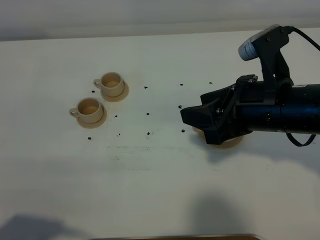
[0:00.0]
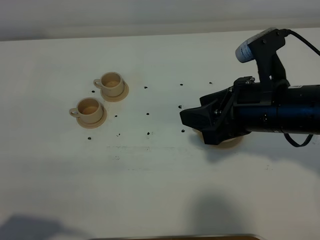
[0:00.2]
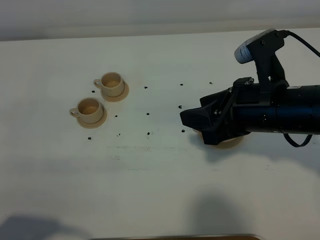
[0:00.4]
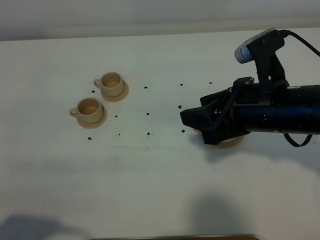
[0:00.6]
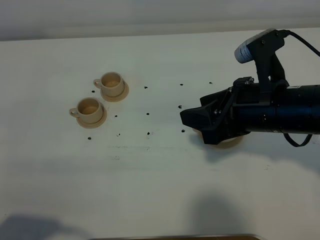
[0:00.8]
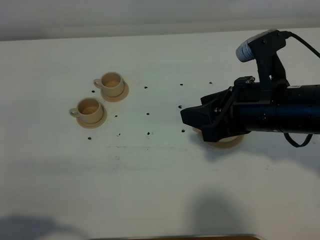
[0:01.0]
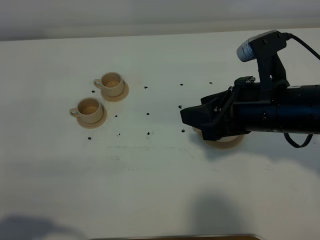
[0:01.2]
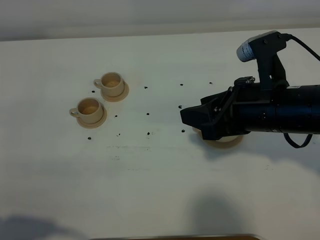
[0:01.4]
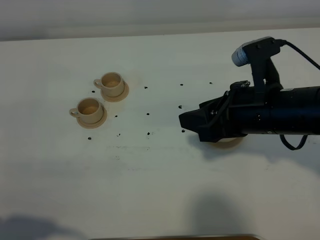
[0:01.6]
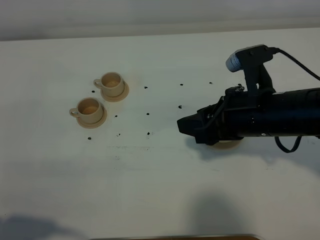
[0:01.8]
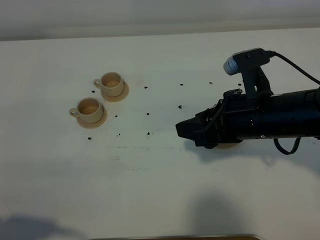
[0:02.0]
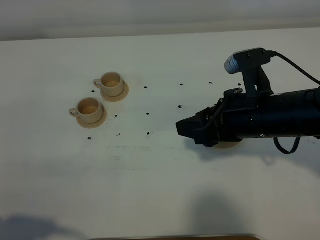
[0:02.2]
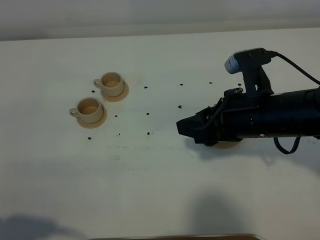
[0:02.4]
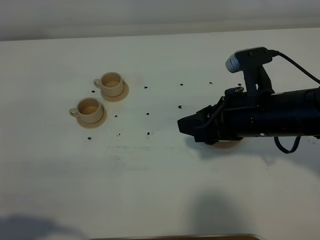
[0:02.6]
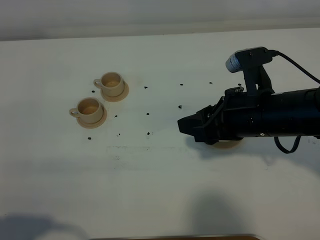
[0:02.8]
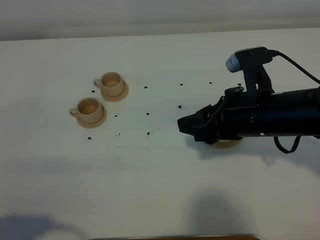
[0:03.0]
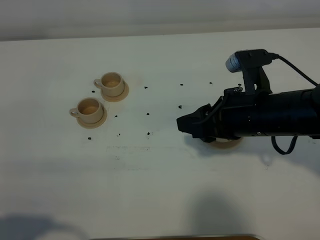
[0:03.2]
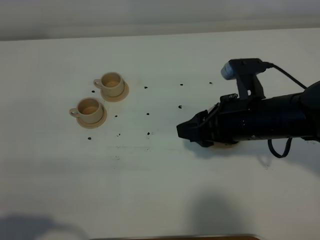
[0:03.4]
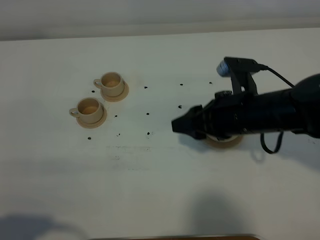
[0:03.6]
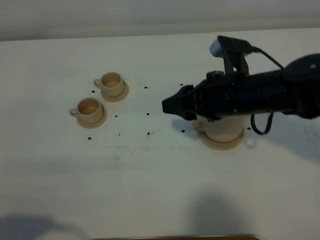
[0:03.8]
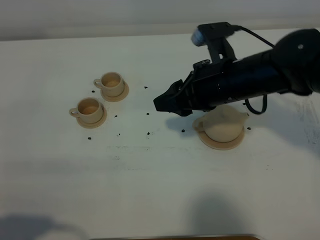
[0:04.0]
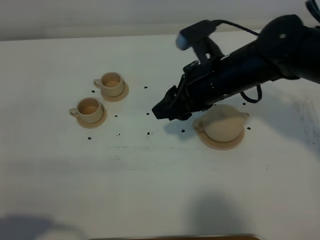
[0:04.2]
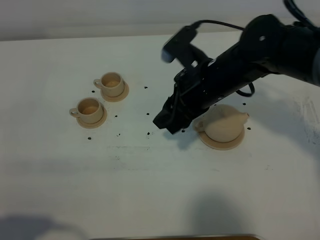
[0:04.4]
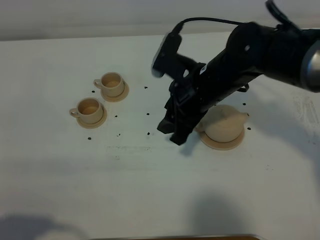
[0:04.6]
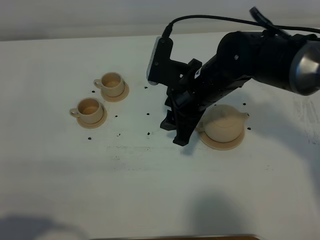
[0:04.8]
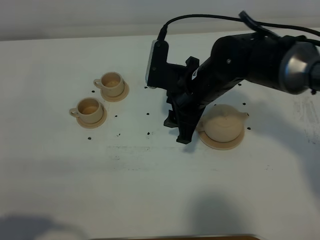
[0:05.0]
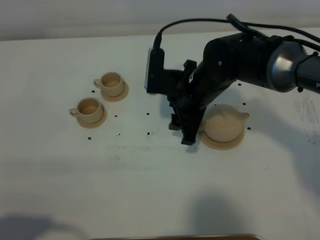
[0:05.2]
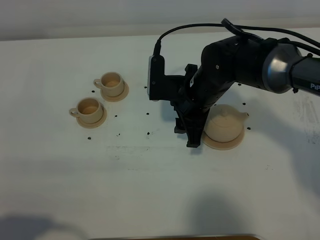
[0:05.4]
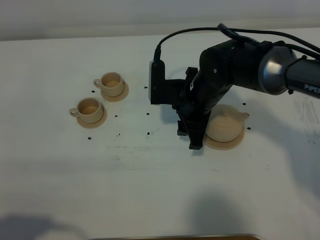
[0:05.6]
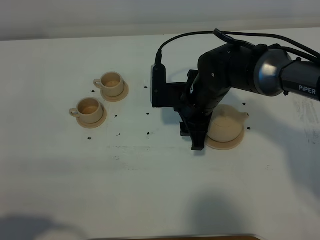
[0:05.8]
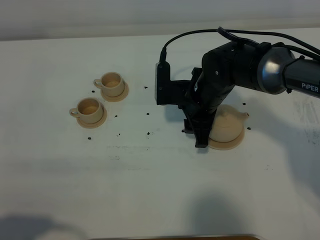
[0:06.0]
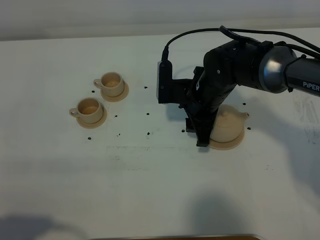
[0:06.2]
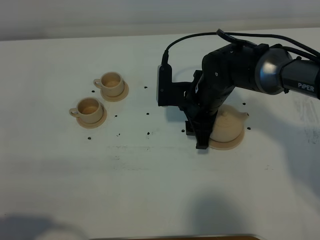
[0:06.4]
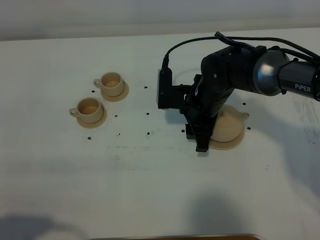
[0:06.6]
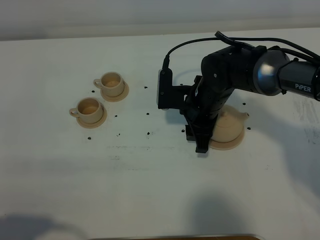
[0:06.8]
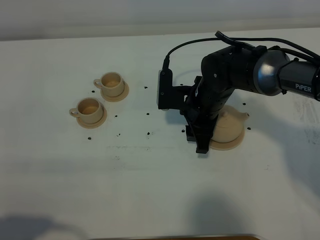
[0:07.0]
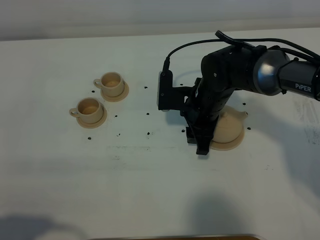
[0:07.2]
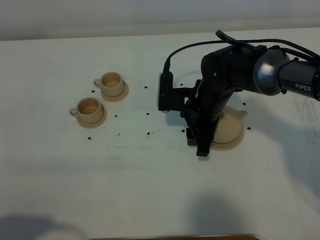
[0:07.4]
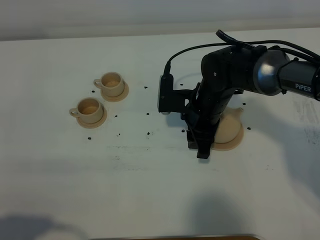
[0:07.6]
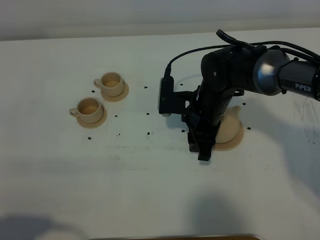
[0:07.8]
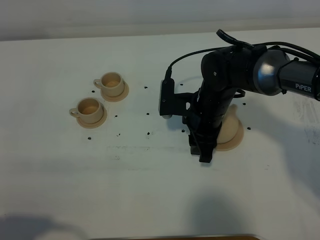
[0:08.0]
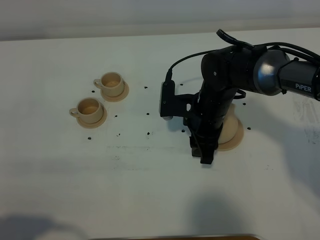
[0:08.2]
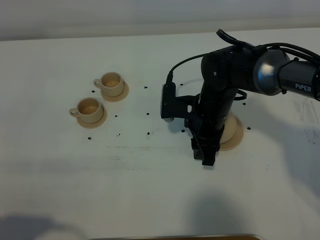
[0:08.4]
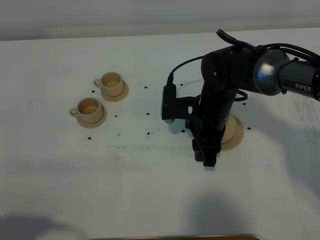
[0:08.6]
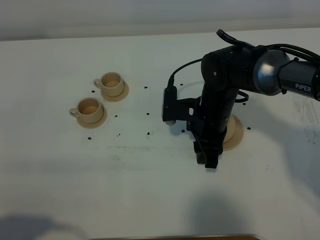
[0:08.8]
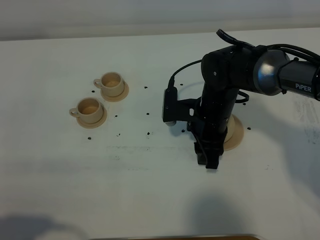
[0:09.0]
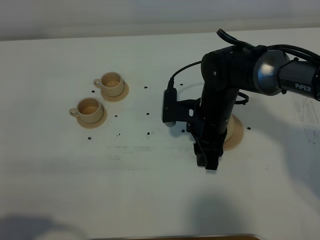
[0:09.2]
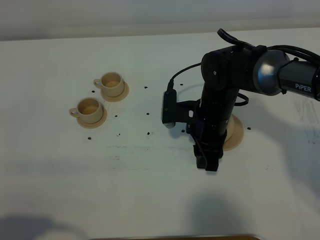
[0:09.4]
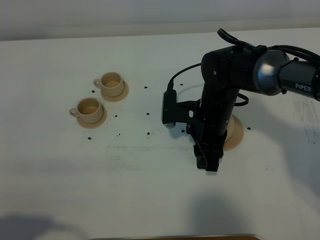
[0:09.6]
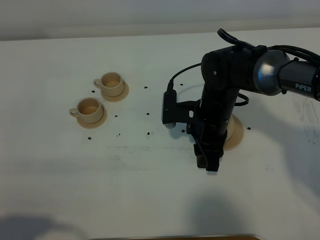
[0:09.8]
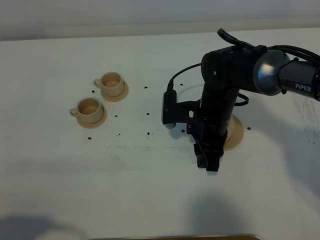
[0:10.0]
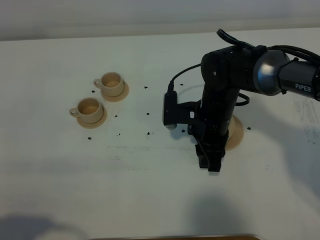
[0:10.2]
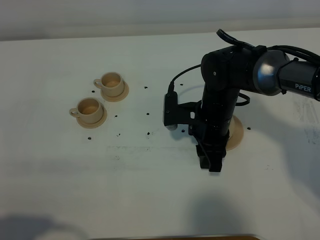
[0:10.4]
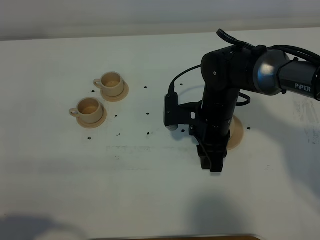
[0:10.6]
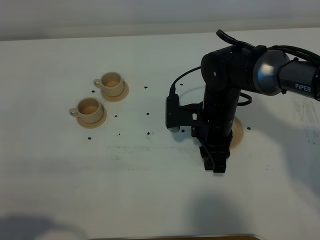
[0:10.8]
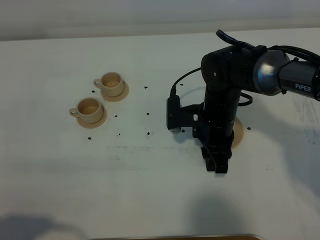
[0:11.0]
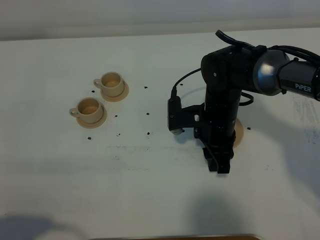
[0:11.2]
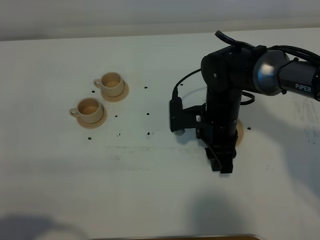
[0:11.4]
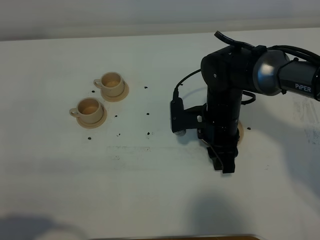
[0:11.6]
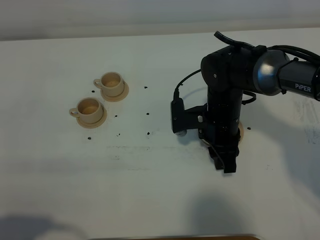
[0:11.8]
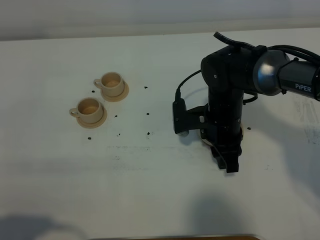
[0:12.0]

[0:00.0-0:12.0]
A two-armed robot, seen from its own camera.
Task of the whole recording: grasp the brown teapot and pour the tea into the two brown teacups one by one, put the brown teapot back in its original place.
0:00.0 to 0:03.0: There are only small adjustments of the grippers.
0:03.0 to 0:04.4: The right gripper goes roughly 10 cm forward and to the left.
0:04.4 to 0:06.0: The right gripper goes some 5 cm downward.
0:06.0 to 0:07.6: The grippers move only a little.
0:07.6 to 0:09.0: The grippers move only a little.
0:09.0 to 0:10.4: Neither gripper changes place.
0:10.4 to 0:12.0: The grippers make only small movements.

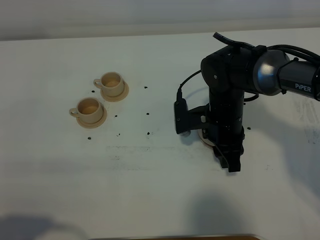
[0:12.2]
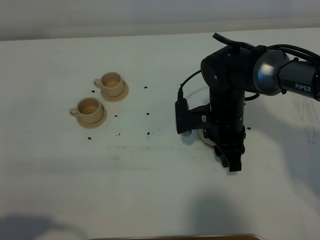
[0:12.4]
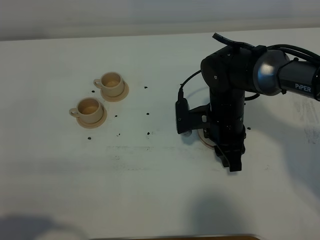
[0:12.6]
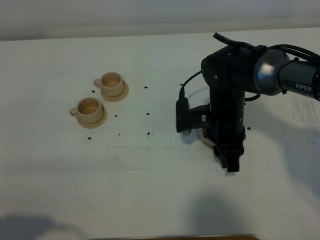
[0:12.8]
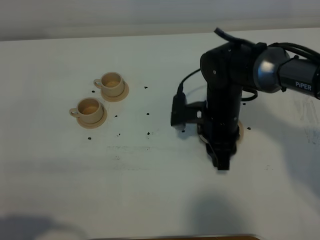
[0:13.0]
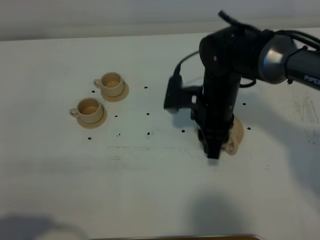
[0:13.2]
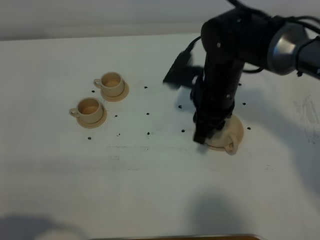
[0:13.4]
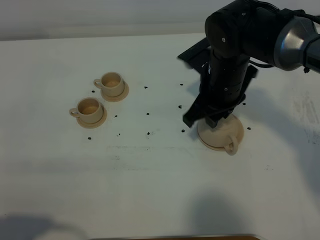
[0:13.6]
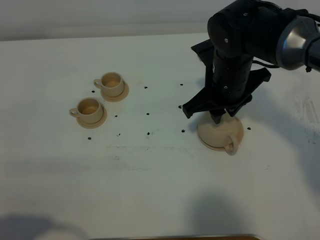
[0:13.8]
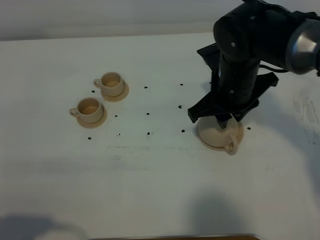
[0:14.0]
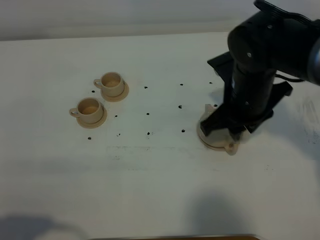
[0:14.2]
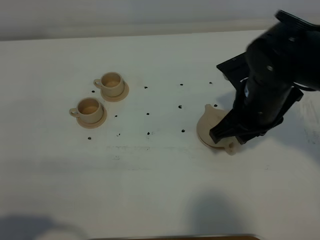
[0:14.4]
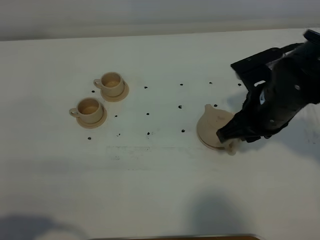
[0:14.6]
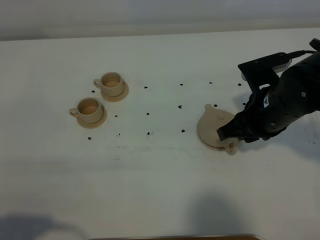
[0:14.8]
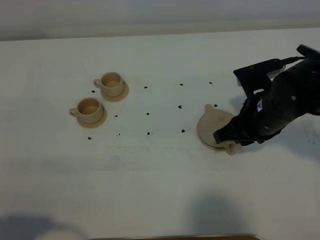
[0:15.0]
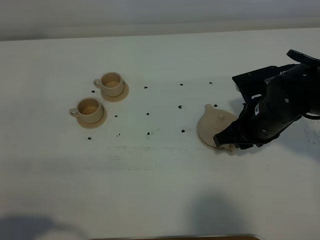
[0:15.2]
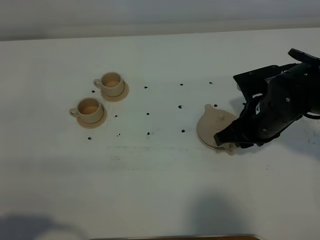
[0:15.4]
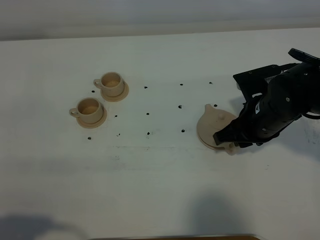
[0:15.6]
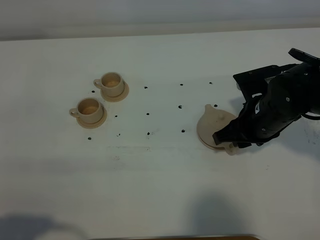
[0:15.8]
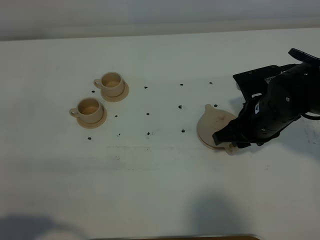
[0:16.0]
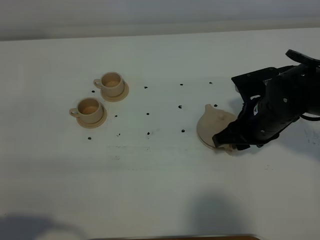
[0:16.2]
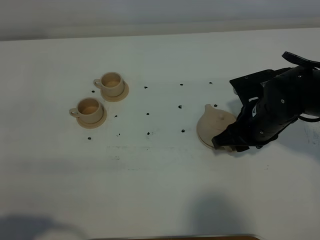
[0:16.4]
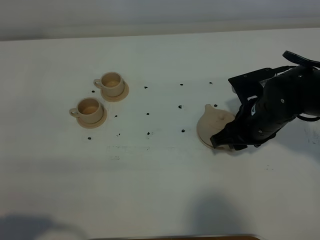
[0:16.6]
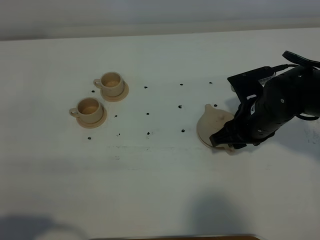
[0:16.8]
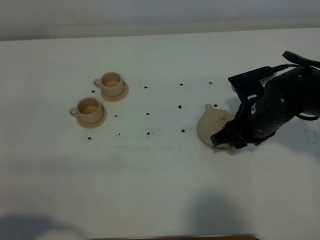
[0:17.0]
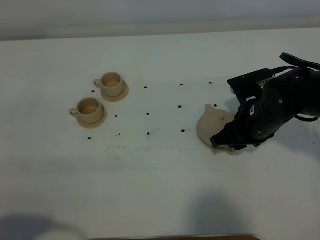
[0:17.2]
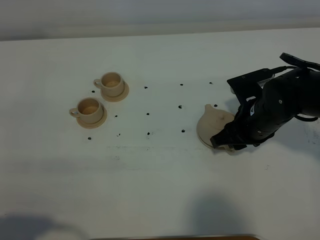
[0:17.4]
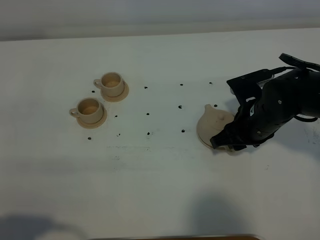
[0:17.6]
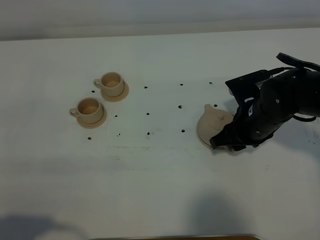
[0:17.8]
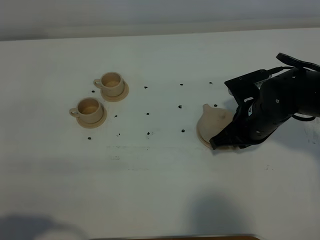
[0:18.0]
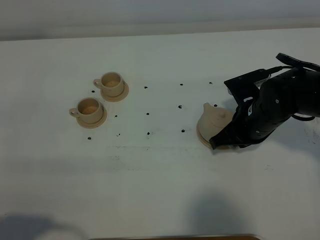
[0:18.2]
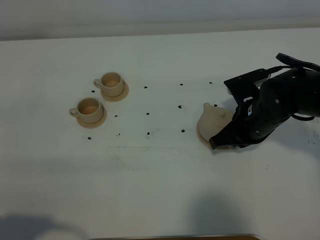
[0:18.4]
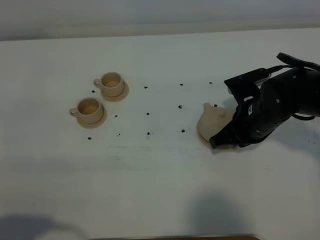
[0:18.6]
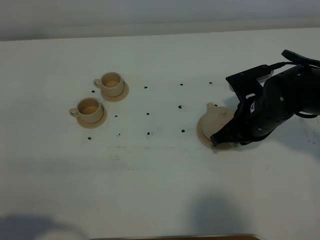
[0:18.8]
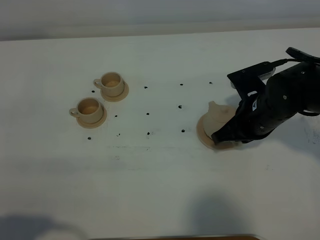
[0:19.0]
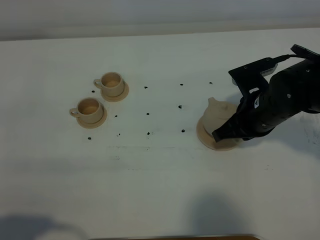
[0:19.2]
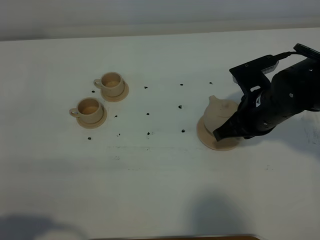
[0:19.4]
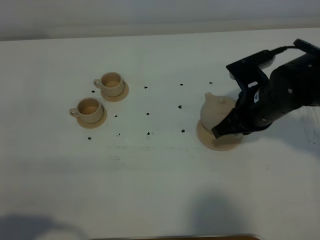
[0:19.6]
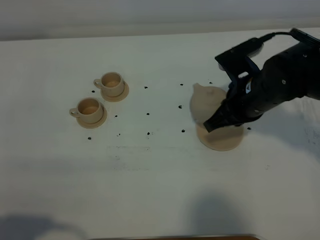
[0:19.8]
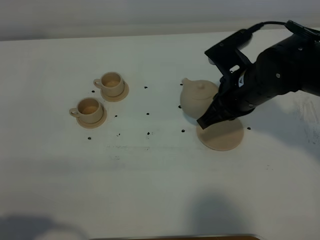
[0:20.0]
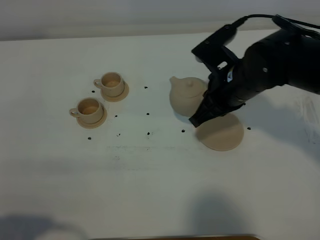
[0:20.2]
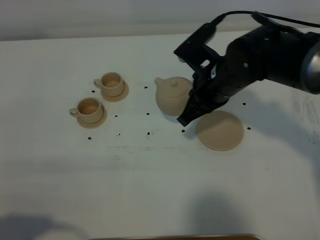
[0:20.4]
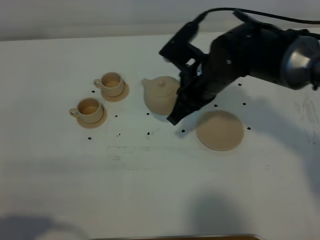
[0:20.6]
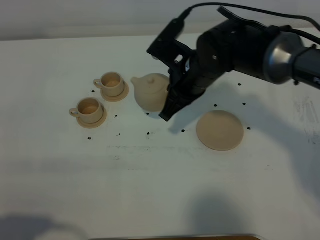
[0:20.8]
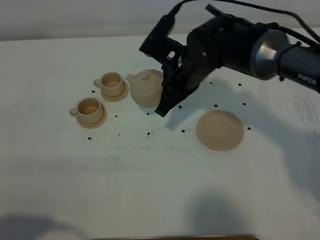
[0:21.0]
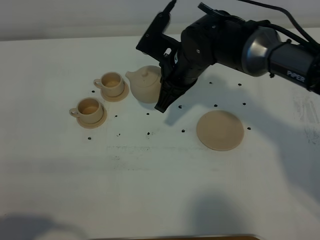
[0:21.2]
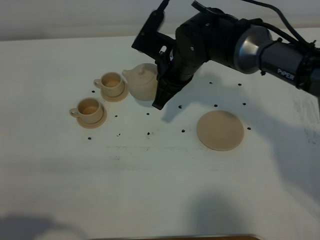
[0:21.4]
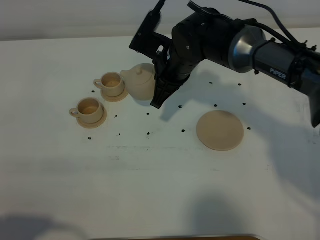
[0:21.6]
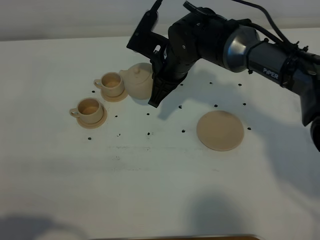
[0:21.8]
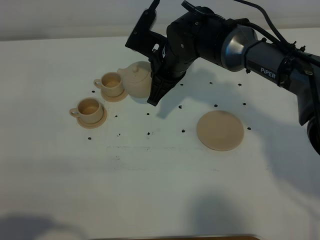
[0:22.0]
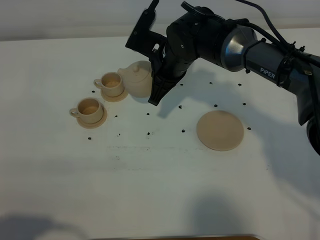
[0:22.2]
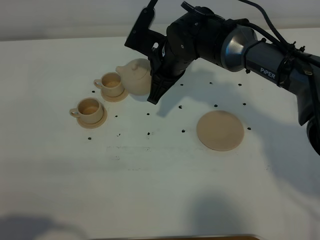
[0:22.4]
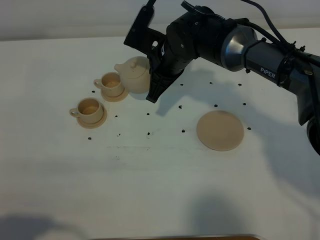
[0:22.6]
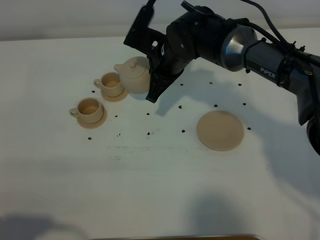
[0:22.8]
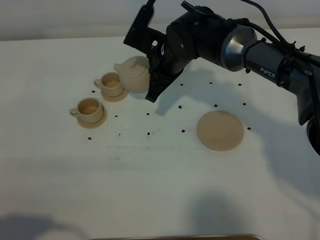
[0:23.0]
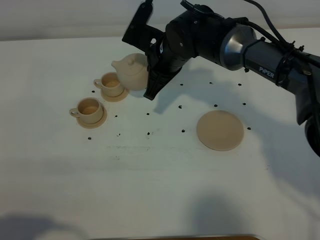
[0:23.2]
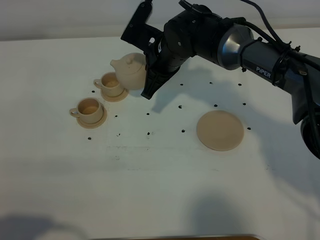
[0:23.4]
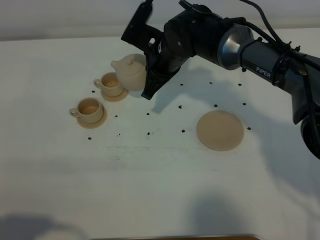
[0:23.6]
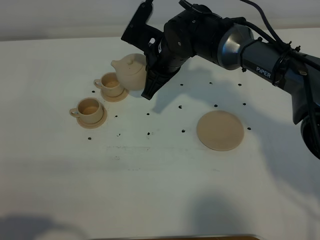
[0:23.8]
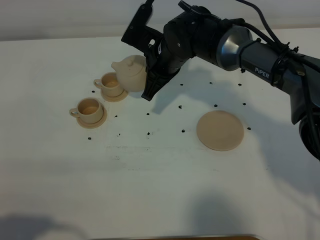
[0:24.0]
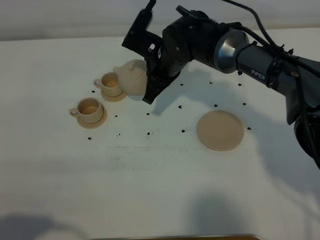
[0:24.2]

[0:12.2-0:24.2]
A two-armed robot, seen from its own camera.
Task of the whole recording: grasp the brown teapot and pour the tea into the two brown teacups one by one, put the brown teapot back in its original place.
Step, 0:12.2 to 0:19.2: Pick up the teapot with the right gripper.
0:12.2 to 0:13.8: The right gripper travels upward by roughly 10 cm.
0:13.8 to 0:15.2: The right gripper goes some 10 cm to the right, backward and downward.
0:15.2 to 0:16.6: Both grippers stay about where they are.
0:16.6 to 0:18.2: The right gripper closes up.
0:18.2 to 0:19.8: The right gripper shifts approximately 5 cm upward.
0:19.8 to 0:21.2: The right gripper is displaced to the left and forward by approximately 15 cm.
0:21.2 to 0:24.2: The grippers stay close to where they were, moving slightly.
